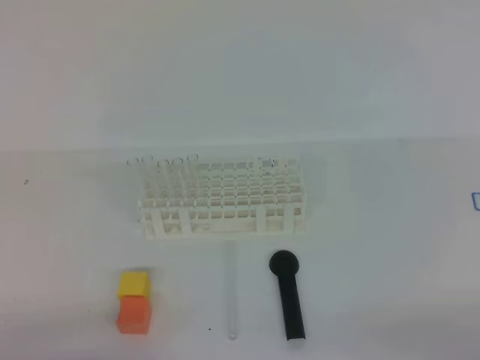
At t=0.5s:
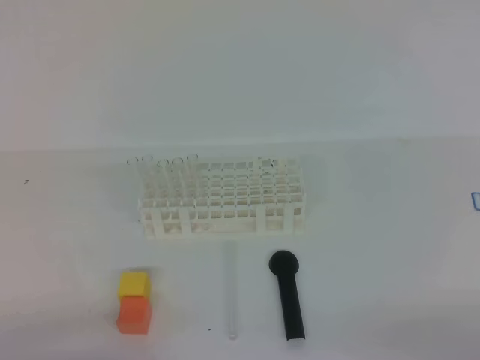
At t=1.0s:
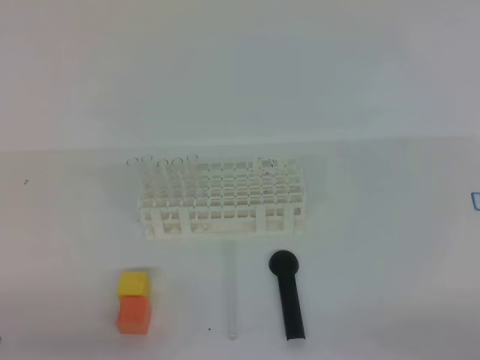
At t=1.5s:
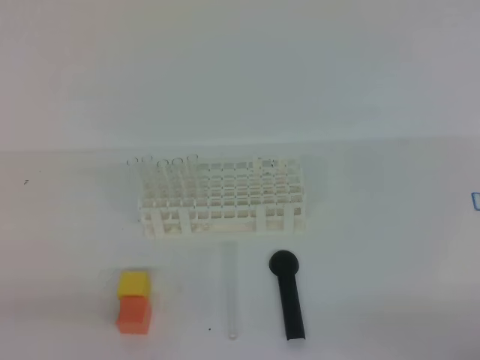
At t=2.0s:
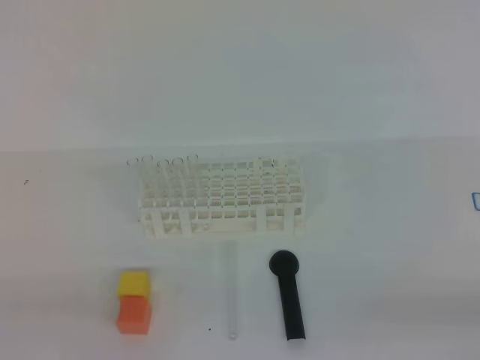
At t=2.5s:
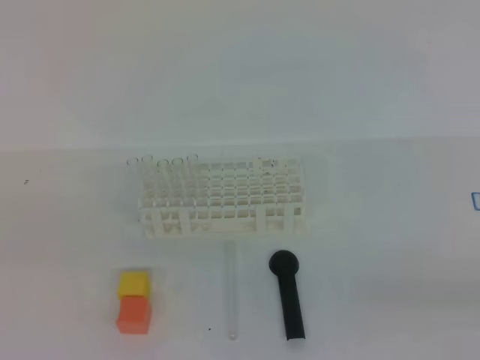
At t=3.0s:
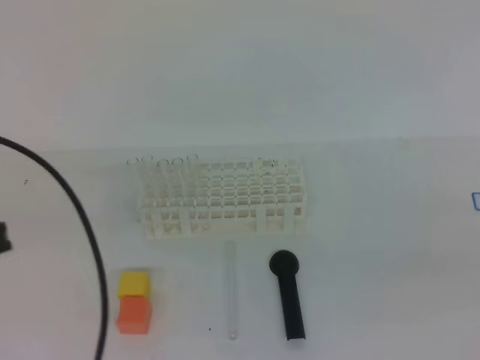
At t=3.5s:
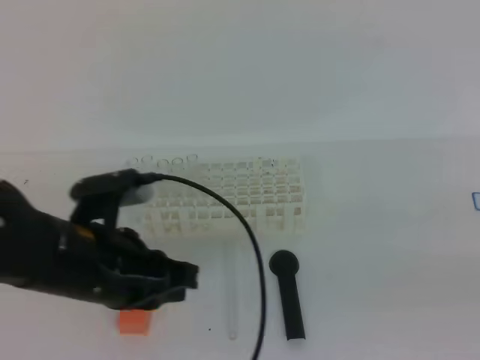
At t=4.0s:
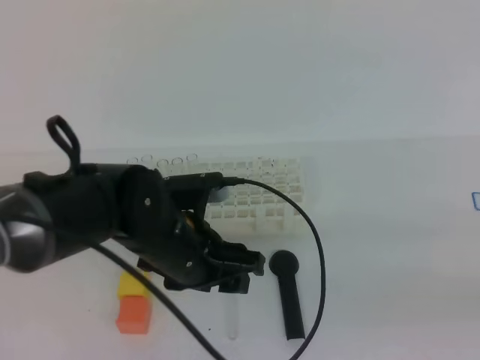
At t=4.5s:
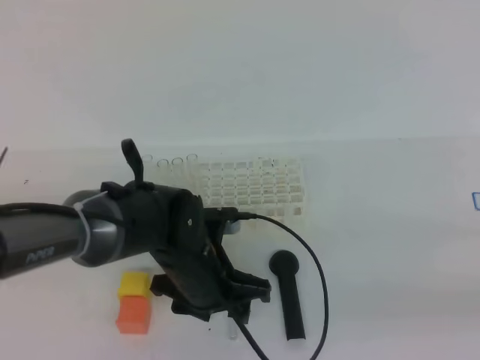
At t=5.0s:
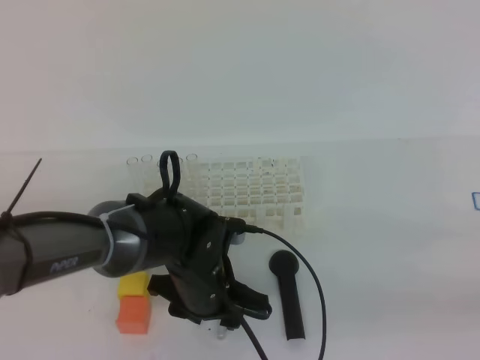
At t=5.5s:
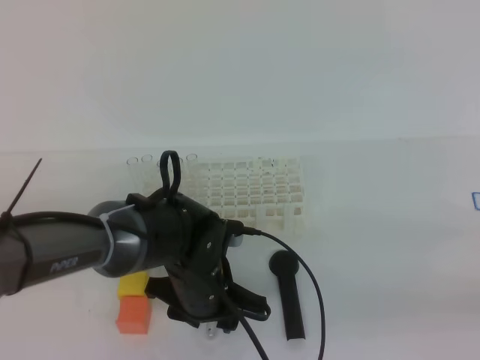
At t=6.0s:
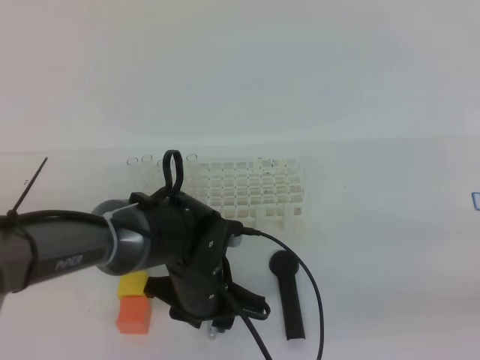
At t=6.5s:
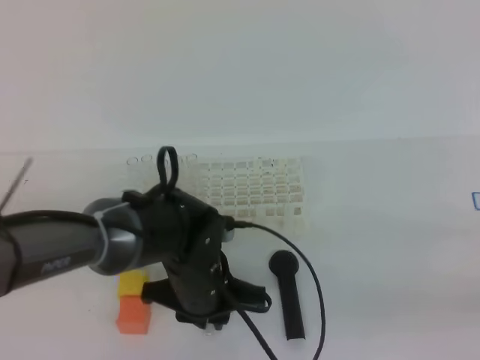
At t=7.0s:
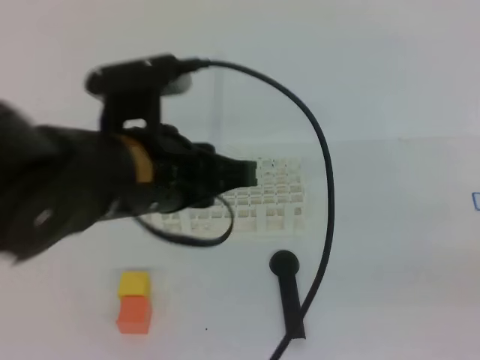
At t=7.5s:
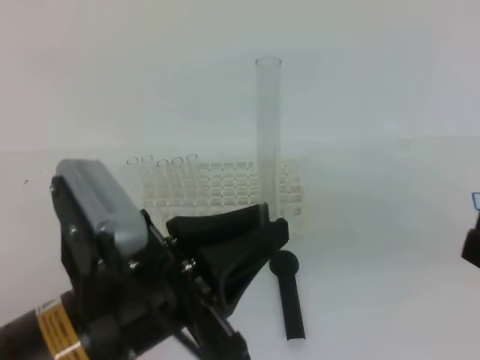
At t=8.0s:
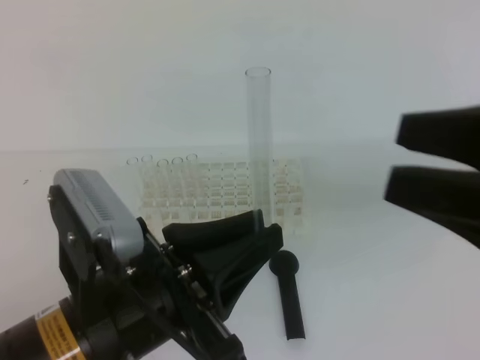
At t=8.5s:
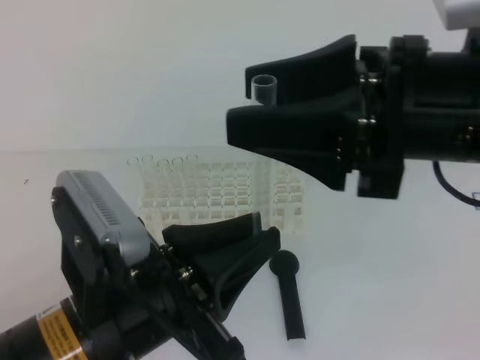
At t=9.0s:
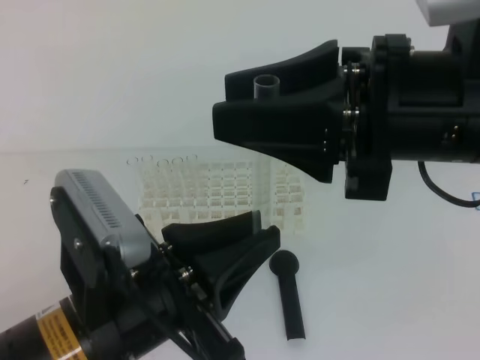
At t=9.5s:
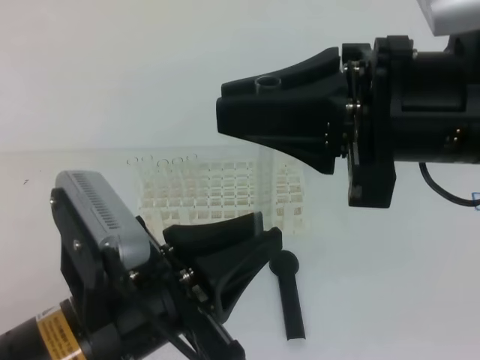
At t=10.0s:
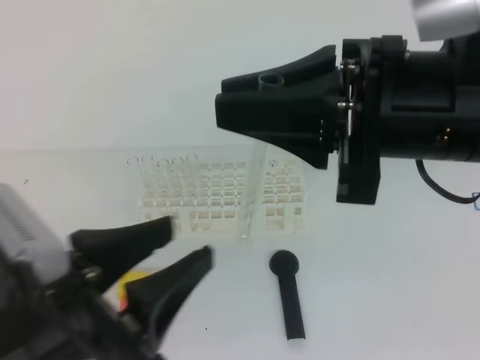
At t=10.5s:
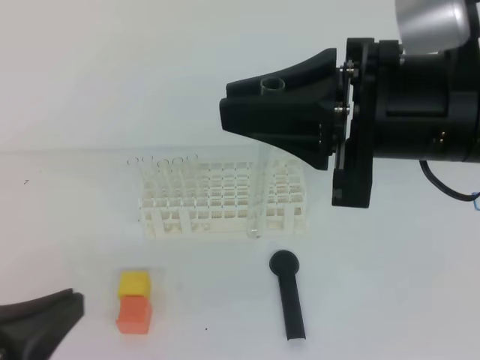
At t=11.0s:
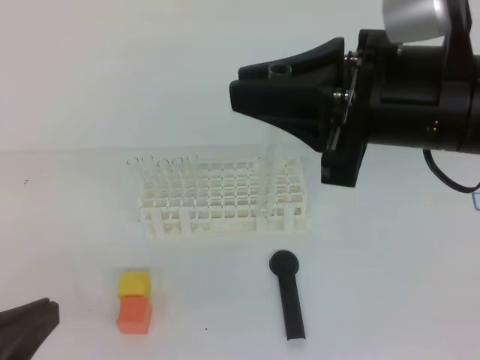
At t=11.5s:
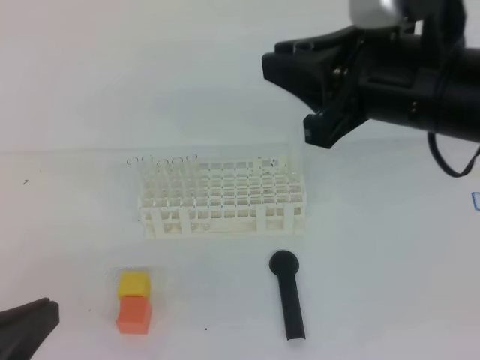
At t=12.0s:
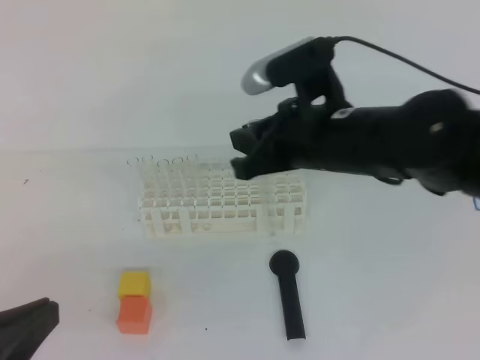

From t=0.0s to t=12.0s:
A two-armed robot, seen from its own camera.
From t=2.0s to t=4.0s: The right gripper travels upward by some 10 cm; the left gripper goes roughly 30 cm forward and to the right, and opens its fingers.
From t=4.0s to t=6.0s: The left gripper is displaced downward by approximately 5 cm, and closes up.
From t=6.0s to t=8.0s: The right gripper heads to the left, forward and upward, covering approximately 15 cm, and opens up. Meanwhile the left gripper heads upward and backward, covering roughly 20 cm, and closes up.
From t=8.0s to t=10.0s: The right gripper shifts some 10 cm to the left and forward, and closes up. The left gripper opens up.
From t=10.0s to t=12.0s: The left gripper is displaced to the left by roughly 10 cm, and closes up. The right gripper is displaced forward and downward by roughly 15 cm.

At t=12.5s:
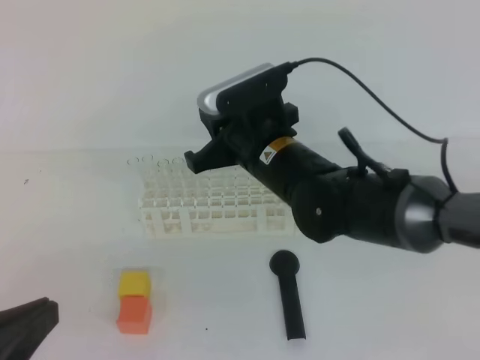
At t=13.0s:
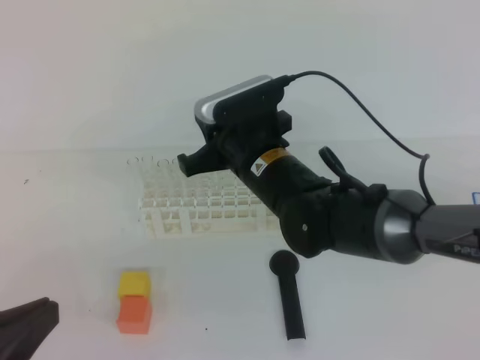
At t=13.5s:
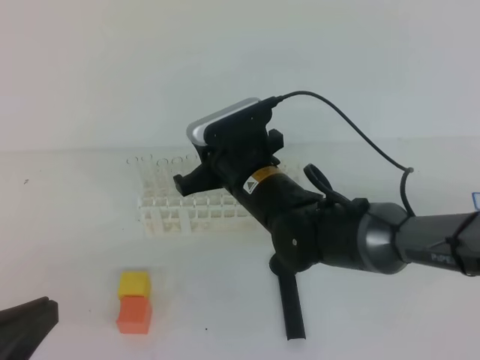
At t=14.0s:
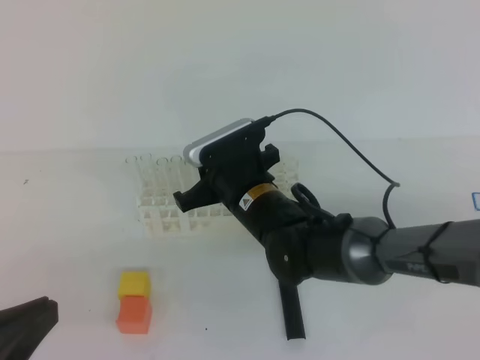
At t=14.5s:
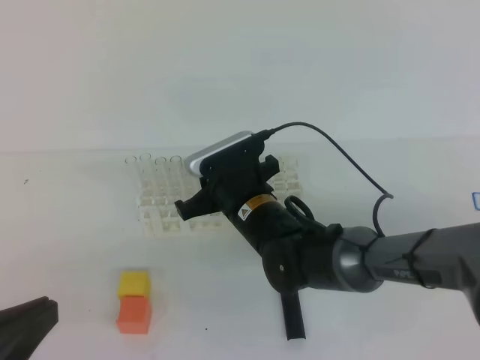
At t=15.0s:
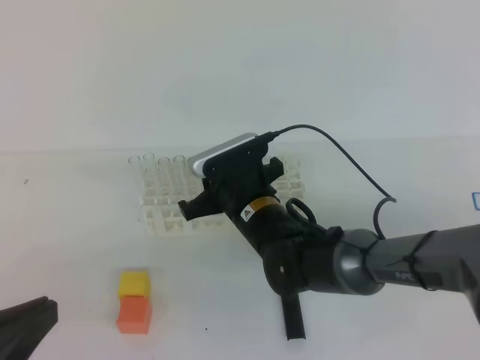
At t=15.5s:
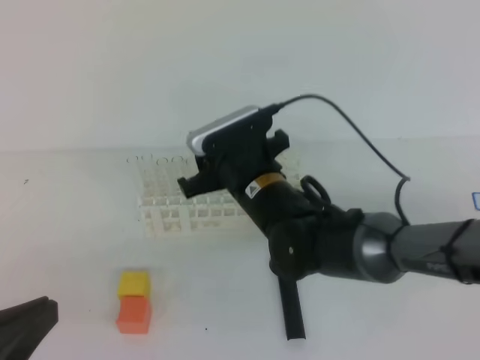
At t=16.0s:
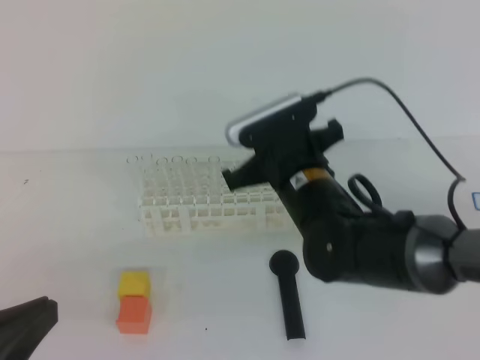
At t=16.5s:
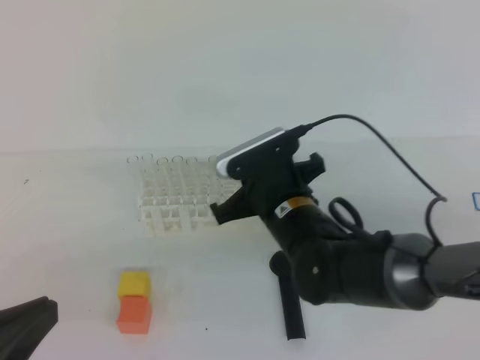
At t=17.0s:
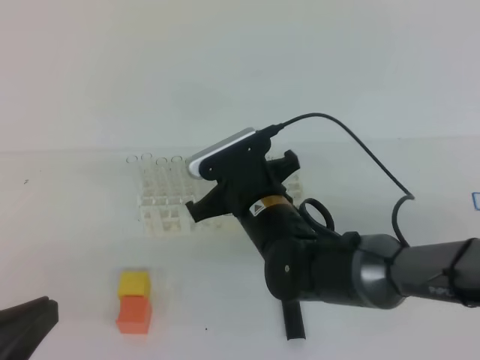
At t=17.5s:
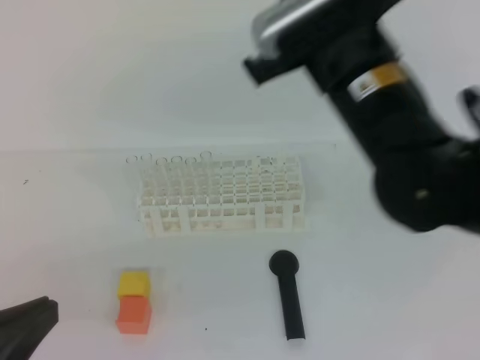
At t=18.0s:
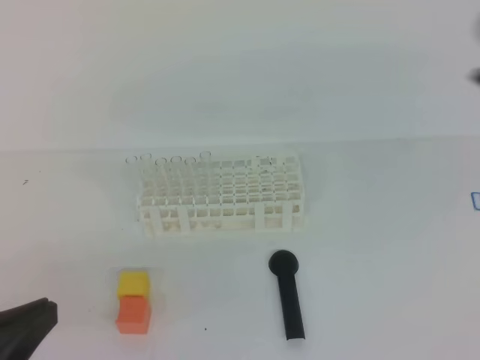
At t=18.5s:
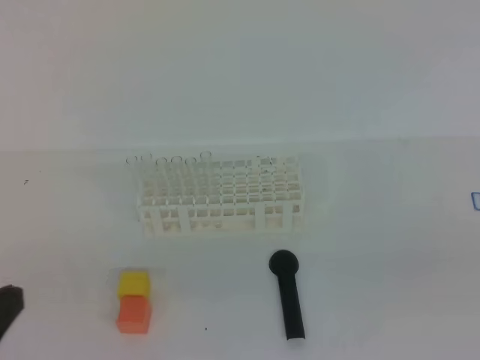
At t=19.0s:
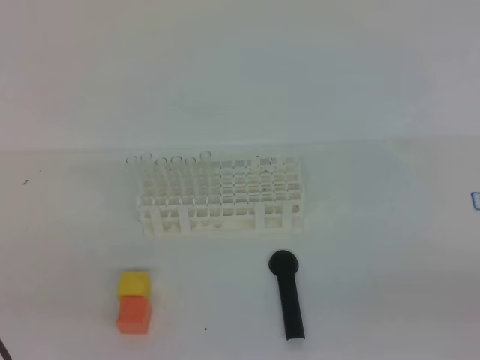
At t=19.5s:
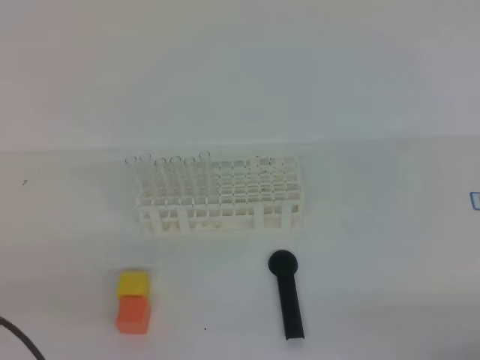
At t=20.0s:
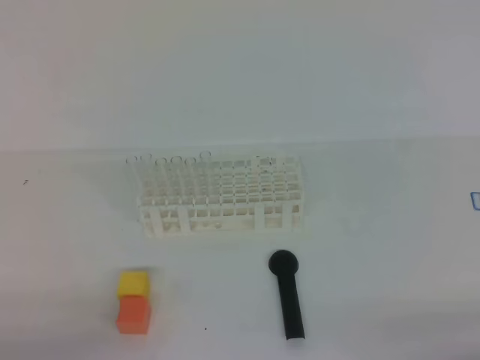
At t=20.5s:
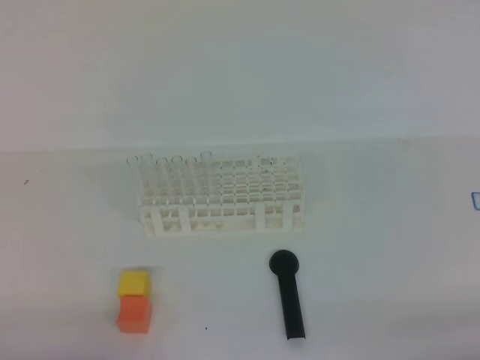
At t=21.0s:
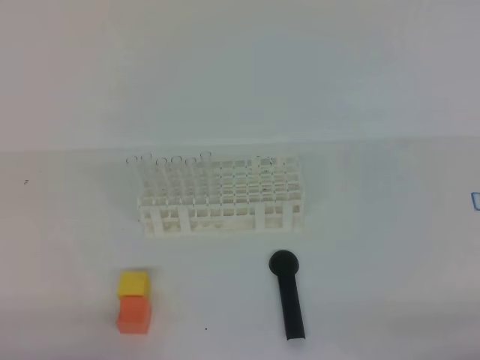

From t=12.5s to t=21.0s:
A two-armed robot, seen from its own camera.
From t=12.5s to t=14.5s: The right gripper shifts approximately 10 cm downward.
From t=14.5s to t=16.5s: The right gripper ends up roughly 5 cm from where it was, and opens, then closes again.
From t=16.5s to t=19.0s: The left gripper is displaced to the left by about 5 cm. The right gripper travels to the right and backward by some 40 cm.
